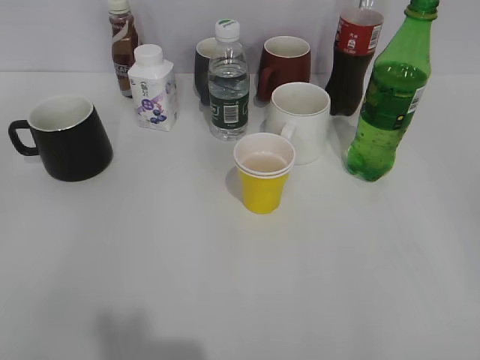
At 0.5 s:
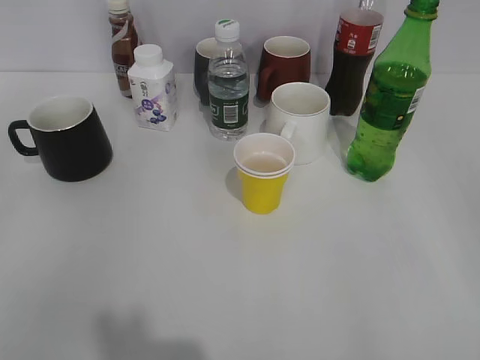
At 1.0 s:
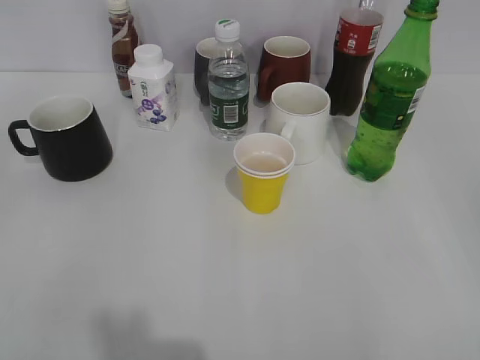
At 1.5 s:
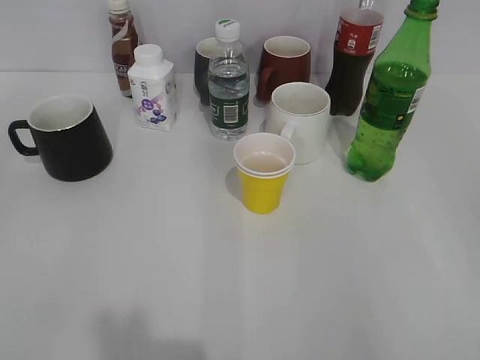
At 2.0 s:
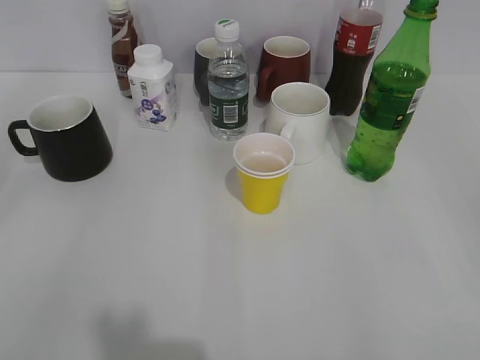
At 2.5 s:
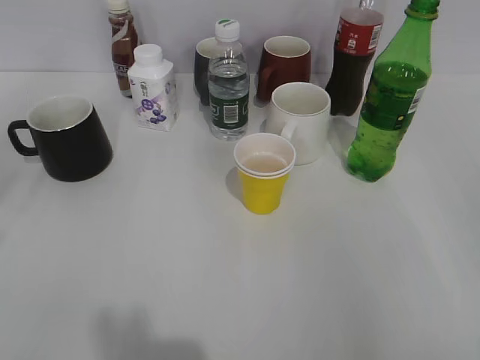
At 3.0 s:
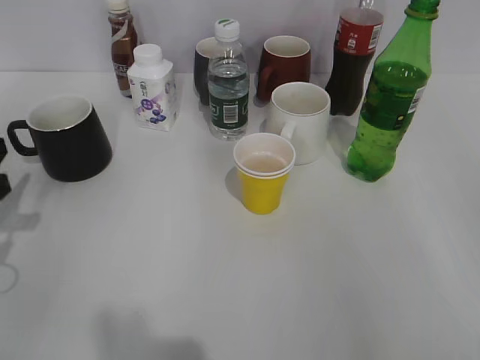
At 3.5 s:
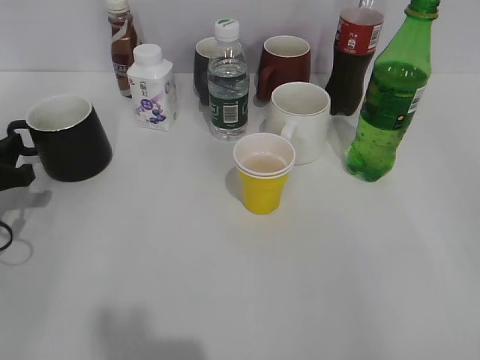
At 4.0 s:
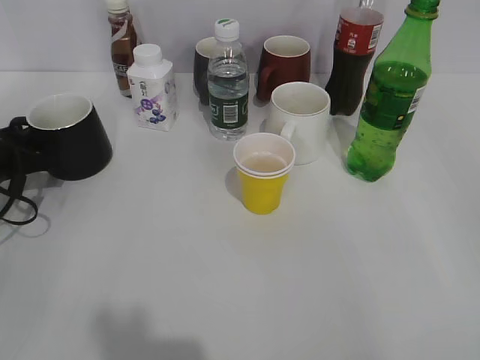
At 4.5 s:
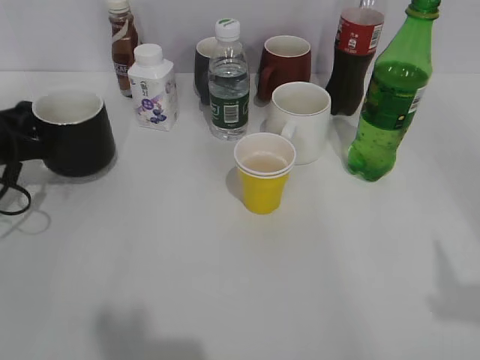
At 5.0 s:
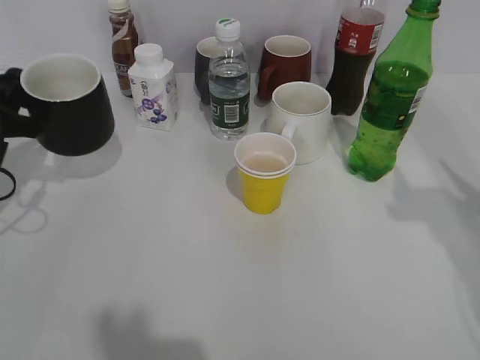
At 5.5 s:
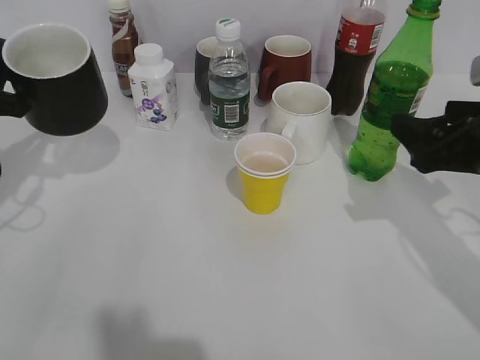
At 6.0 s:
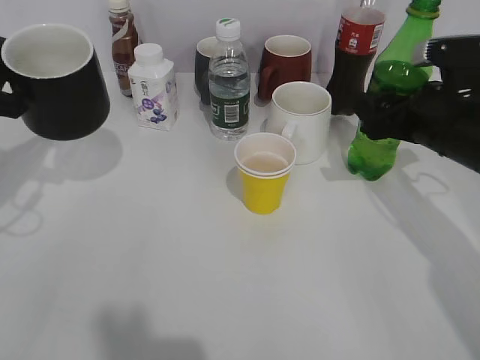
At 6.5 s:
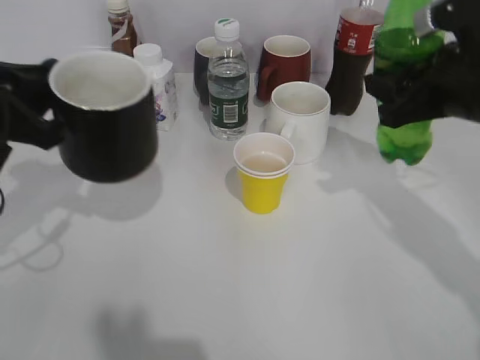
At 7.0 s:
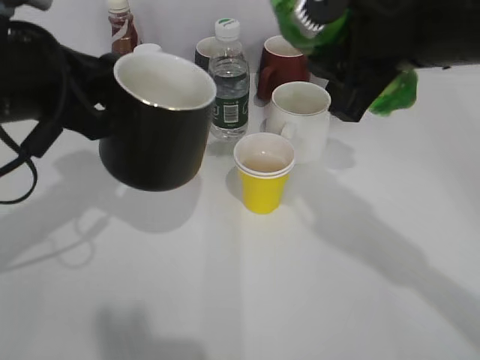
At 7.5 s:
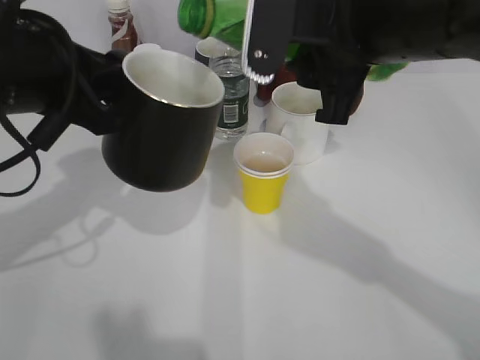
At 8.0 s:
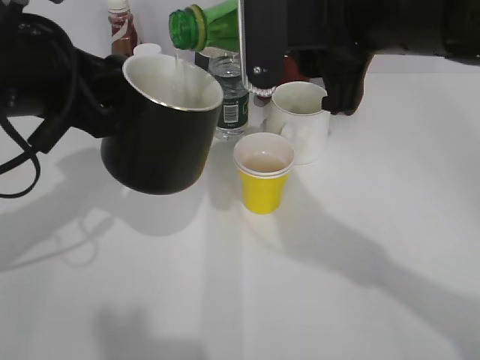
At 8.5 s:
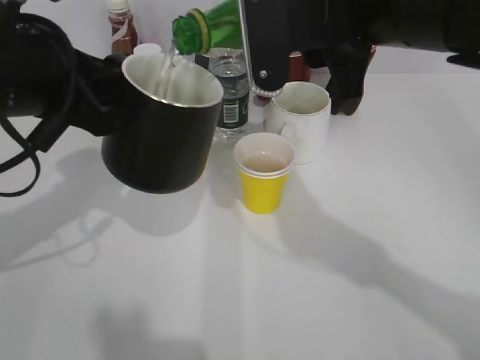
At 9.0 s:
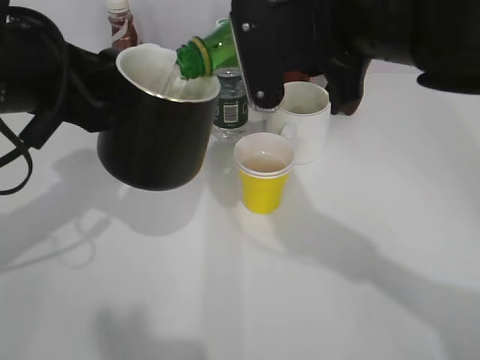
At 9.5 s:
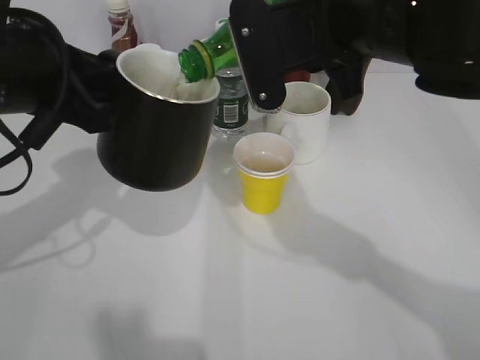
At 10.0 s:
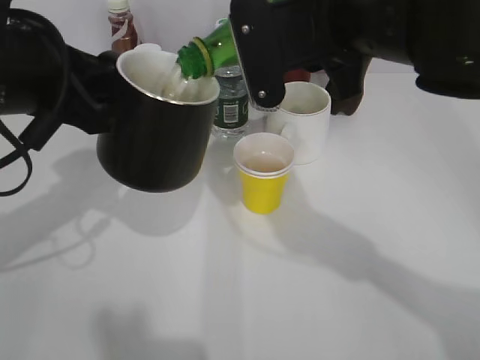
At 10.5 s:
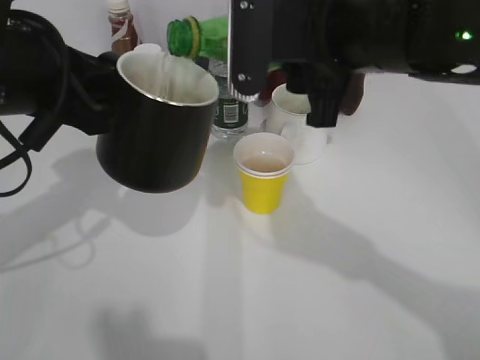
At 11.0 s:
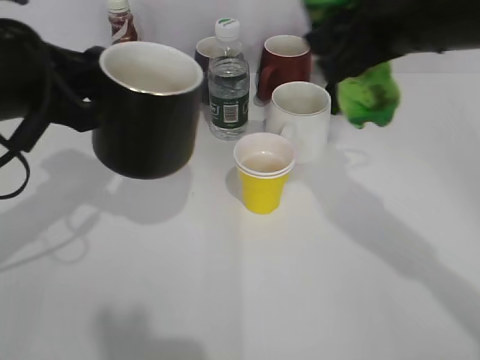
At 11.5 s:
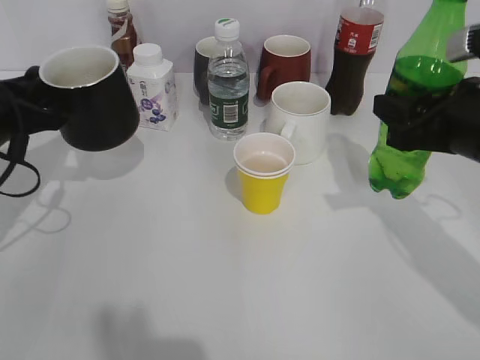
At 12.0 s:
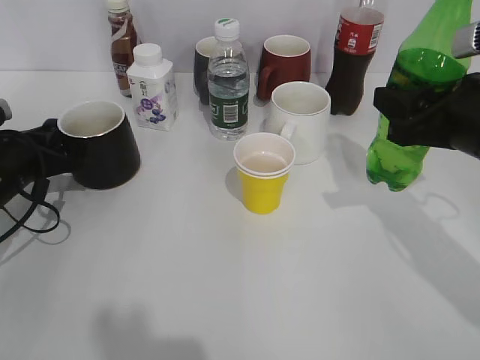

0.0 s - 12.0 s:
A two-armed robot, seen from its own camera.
Step, 2.0 s - 4.0 s: Grasp the black cup with left gripper.
Step, 4.5 s - 6.0 s: Grasp the bottle with sprite with right gripper.
Step, 6.5 s - 10.5 s: Pour the sprite from bottle to cup with right gripper.
2.0 s - 4.0 s: The left gripper goes approximately 35 cm forward and downward.
4.0 s - 6.0 s: The left gripper moves upward, roughly 10 cm, and closes. Meanwhile the right gripper shifts approximately 30 cm forward.
6.0 s - 8.0 s: The right gripper heads to the left, upward and backward, covering some 20 cm, and closes; the left gripper is displaced to the right and upward by some 15 cm.
8.0 s - 10.0 s: The grippers make only small movements.
10.0 s - 12.0 s: The right gripper heads to the right and downward, covering roughly 15 cm. The left gripper heads downward, to the left and forward, covering roughly 20 cm.

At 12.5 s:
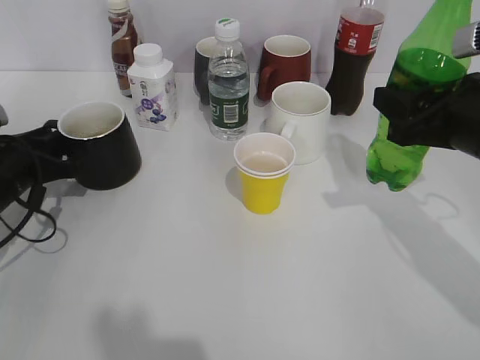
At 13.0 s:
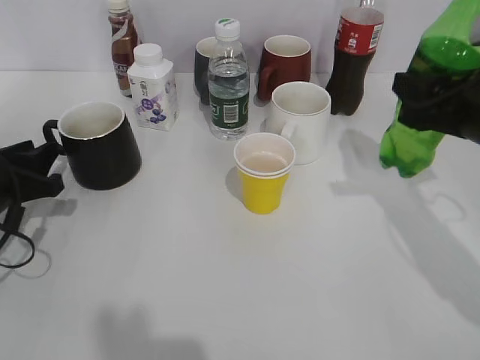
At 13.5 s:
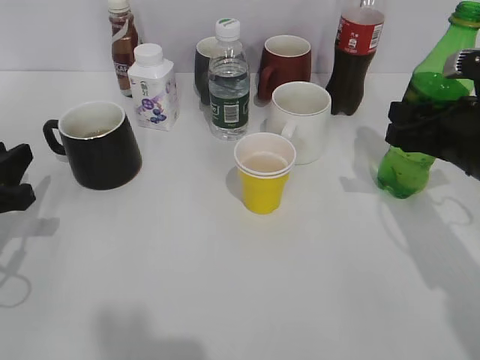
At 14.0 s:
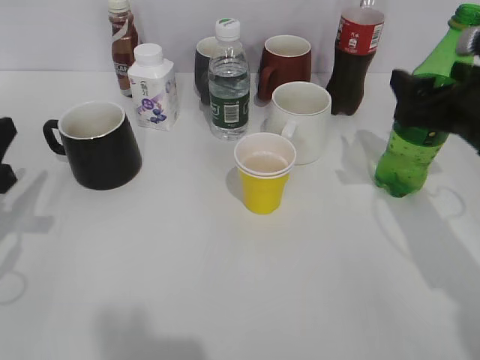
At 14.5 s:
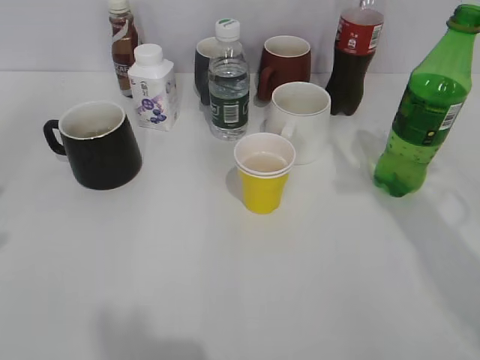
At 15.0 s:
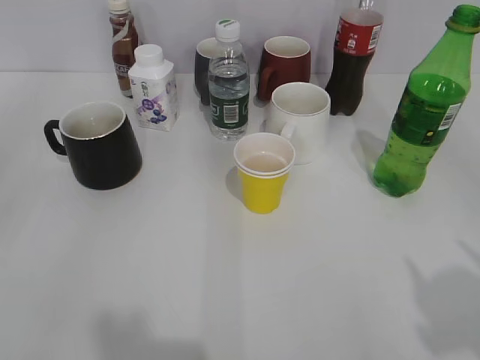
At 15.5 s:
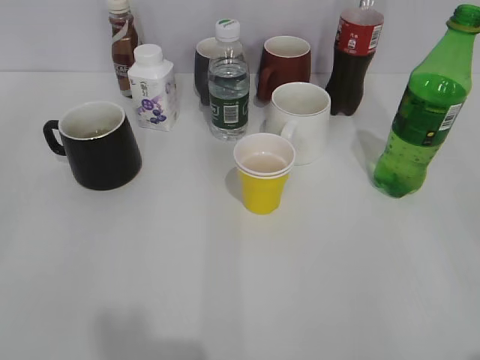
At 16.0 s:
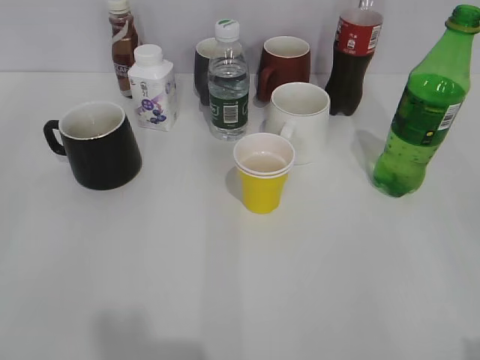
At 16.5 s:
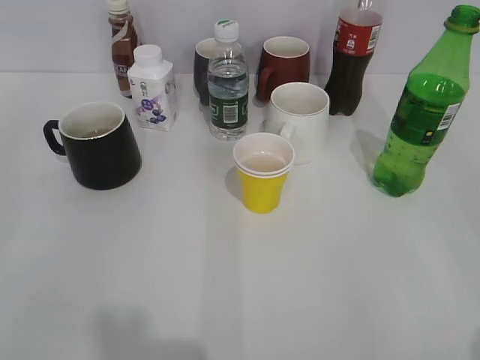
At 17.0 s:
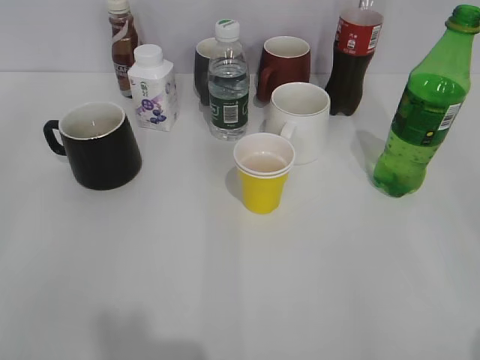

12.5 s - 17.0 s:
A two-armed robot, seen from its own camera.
Step, 13.0 s - 14.0 s: Place the sprite bottle on the table with right gripper.
12.5 s - 14.5 s: The right gripper heads upward, covering some 10 cm, and opens; the left gripper is displaced upward and backward by approximately 25 cm.
14.5 s - 17.0 s: The right gripper travels backward by some 20 cm.

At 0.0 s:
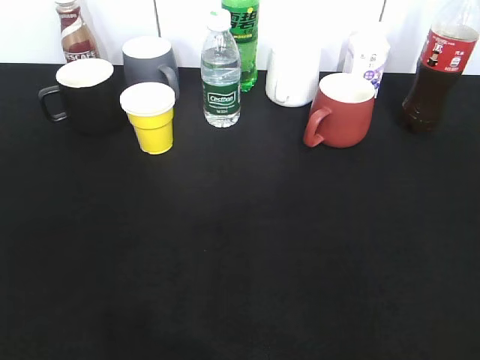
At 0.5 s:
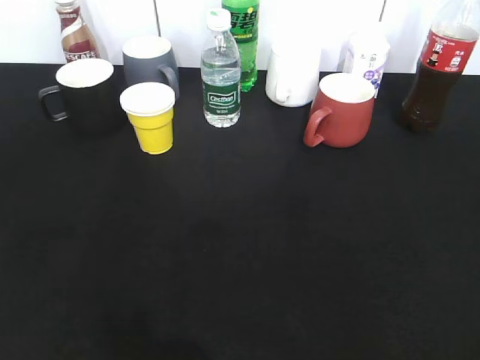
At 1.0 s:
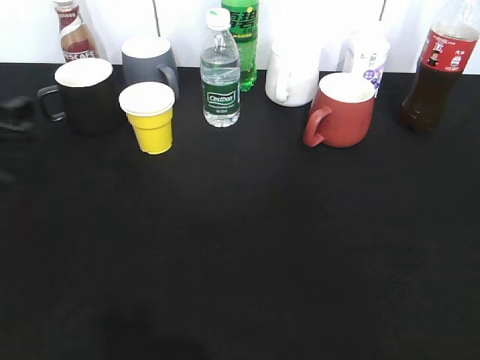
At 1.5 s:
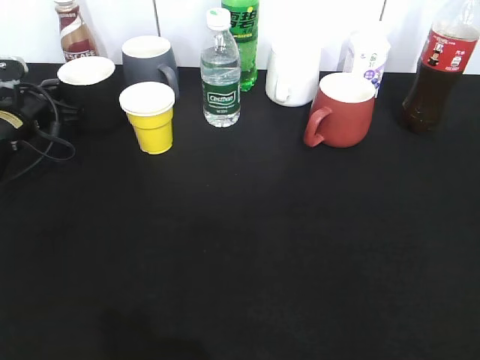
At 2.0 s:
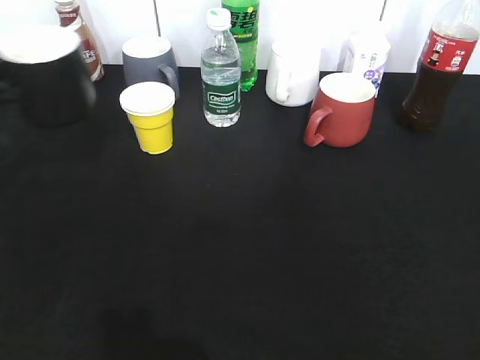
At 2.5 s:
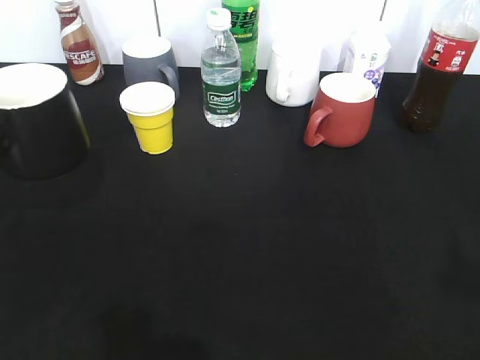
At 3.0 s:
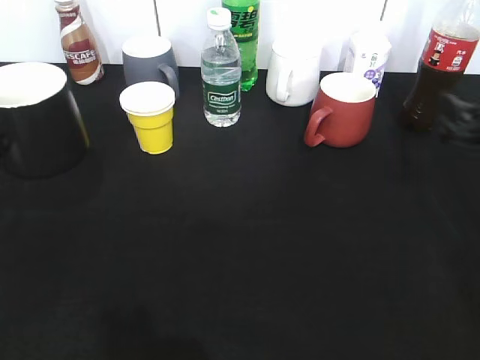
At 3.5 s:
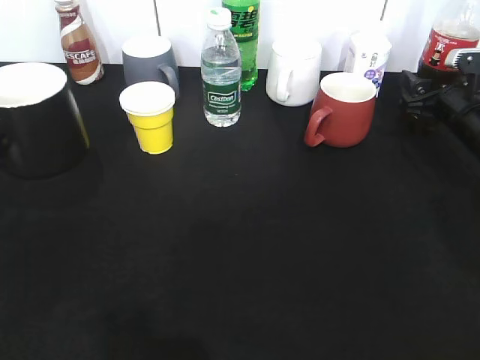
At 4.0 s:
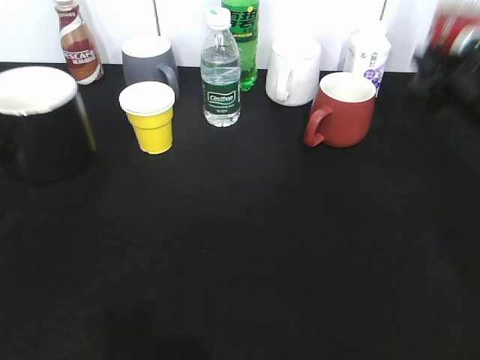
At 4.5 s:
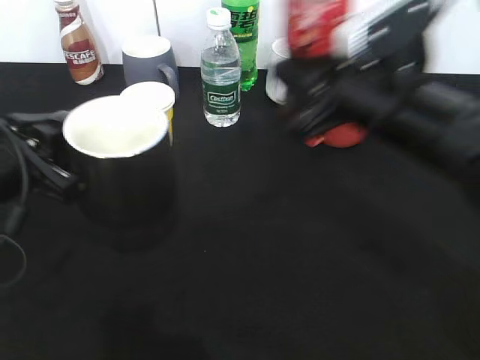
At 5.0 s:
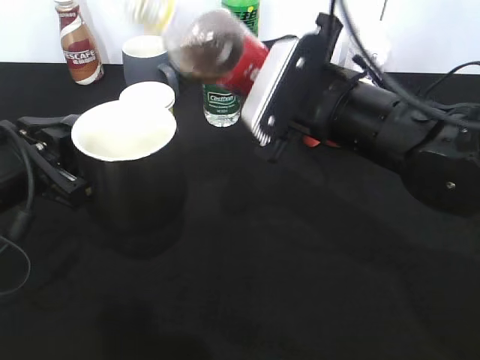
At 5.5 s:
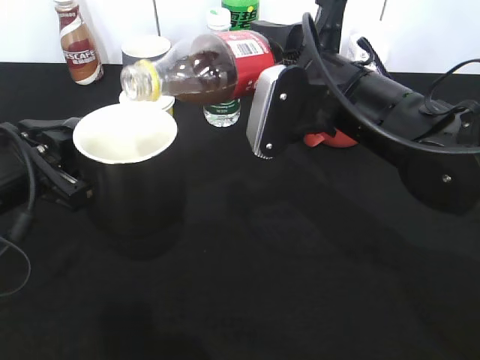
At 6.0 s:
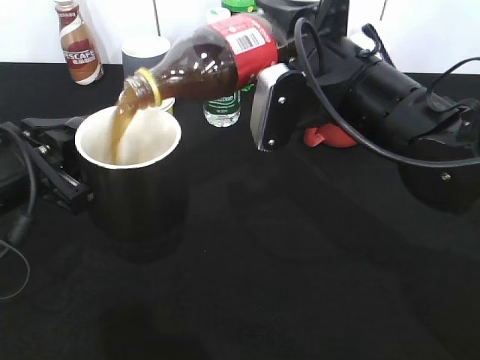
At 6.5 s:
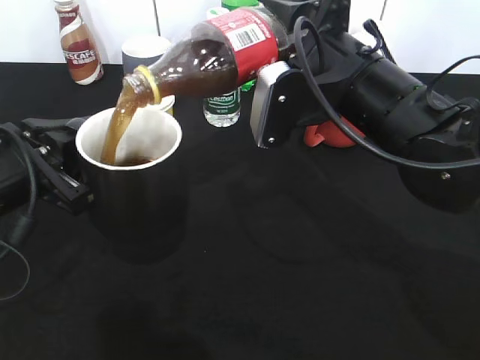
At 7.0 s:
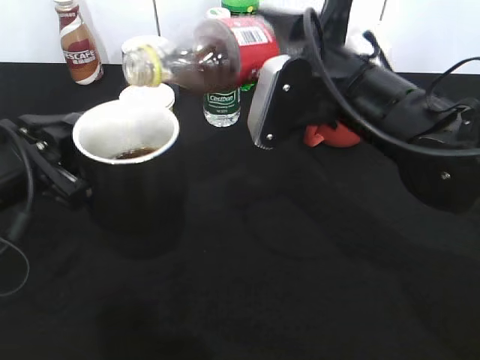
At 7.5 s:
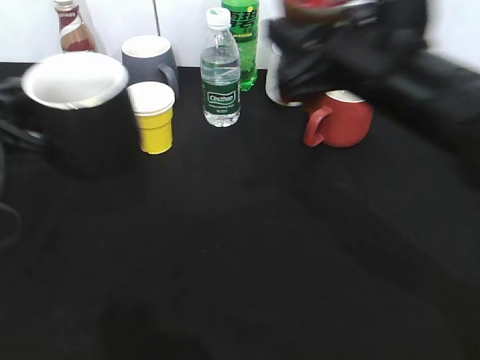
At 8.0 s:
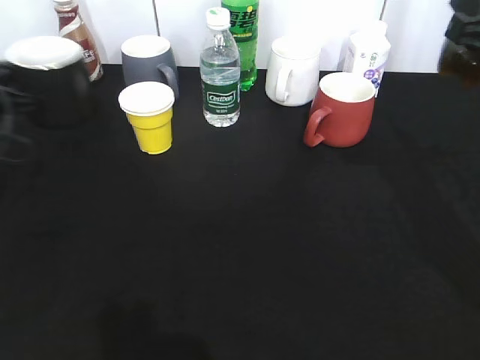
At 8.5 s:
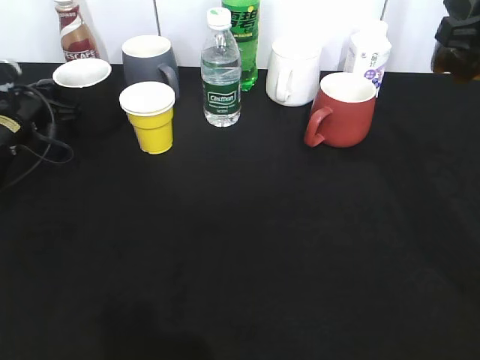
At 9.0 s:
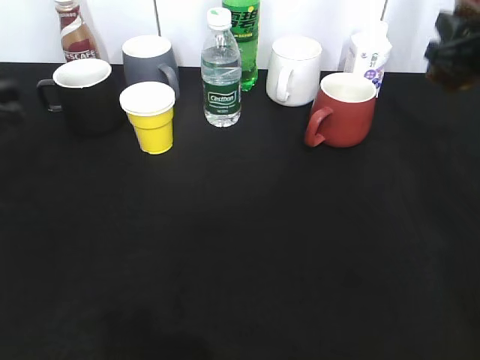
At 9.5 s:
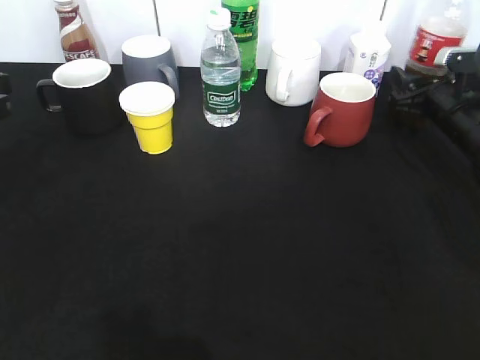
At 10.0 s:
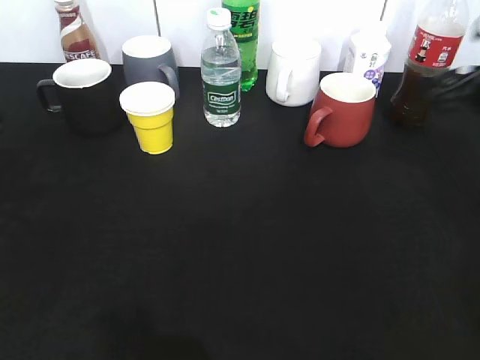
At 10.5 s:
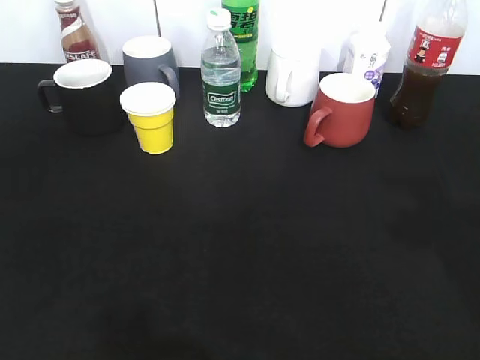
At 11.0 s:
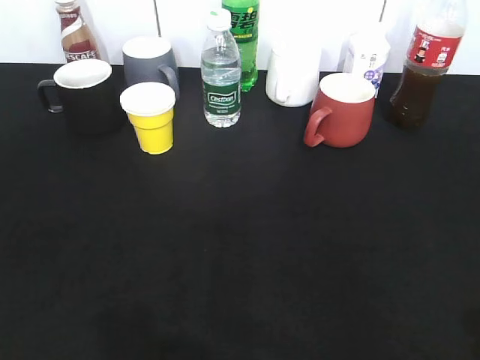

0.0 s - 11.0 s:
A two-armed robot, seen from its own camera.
Step, 0.0 s - 1.5 s: Grasp the black cup with left gripper.
Step, 2.0 s - 2.5 s: Lift the black cup with left gripper.
Step, 4.0 s - 7.0 s: Pour the cola from bottle to cup with right gripper.
Step, 7.5 s - 8.5 s: Place the black cup on the table with left gripper.
Step, 9.0 s - 10.0 s: Place the cola bottle on the table with right gripper.
0.0 s - 2.0 s: The left gripper heads forward, covering about 30 cm, and closes up.
2.0 s - 3.5 s: The left gripper goes some 5 cm backward, while the right gripper is displaced forward and downward by roughly 40 cm.
3.5 s - 5.5 s: The left gripper heads to the right, covering some 10 cm. The right gripper heads to the left, backward and upward, covering some 25 cm, and closes.
5.5 s - 7.5 s: The right gripper moves roughly 5 cm.
7.5 s - 9.0 s: The left gripper moves to the left, roughly 5 cm, travels forward and back again, approximately 20 cm each way, and opens; the right gripper goes roughly 20 cm to the right and forward.
9.0 s - 11.0 s: Both grippers move backward, some 30 cm. The right gripper opens its fingers.
